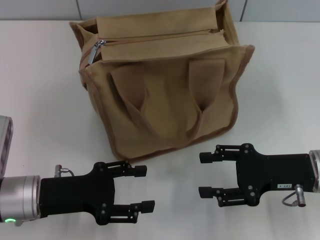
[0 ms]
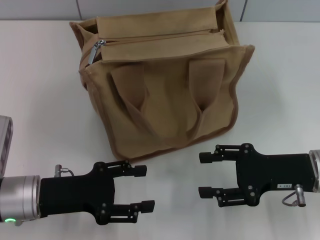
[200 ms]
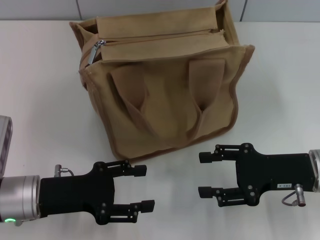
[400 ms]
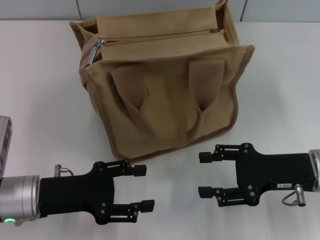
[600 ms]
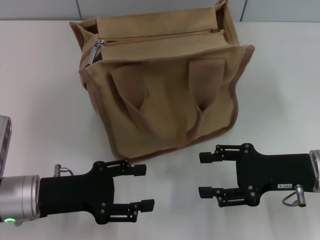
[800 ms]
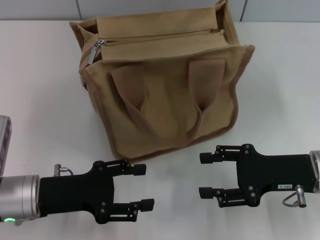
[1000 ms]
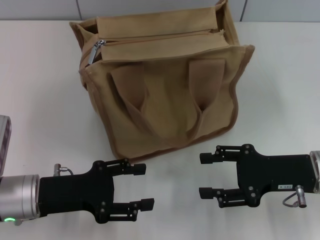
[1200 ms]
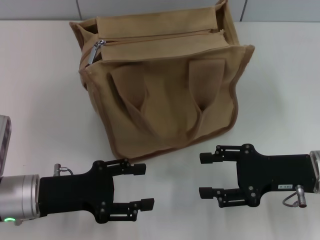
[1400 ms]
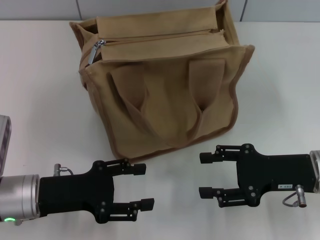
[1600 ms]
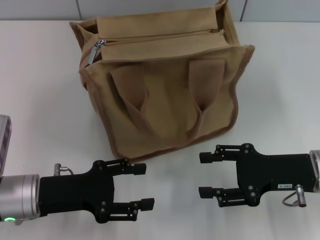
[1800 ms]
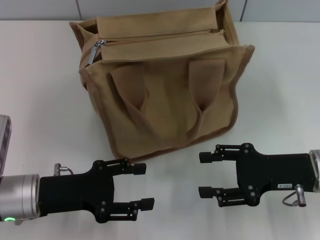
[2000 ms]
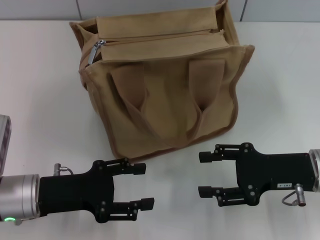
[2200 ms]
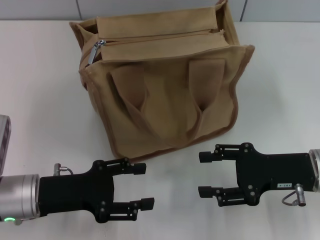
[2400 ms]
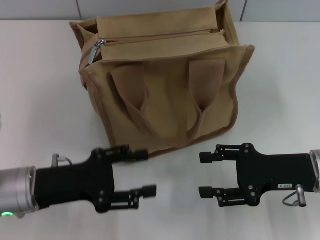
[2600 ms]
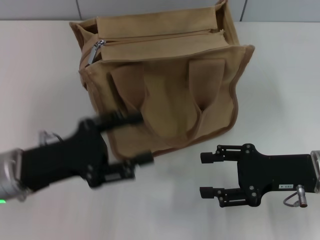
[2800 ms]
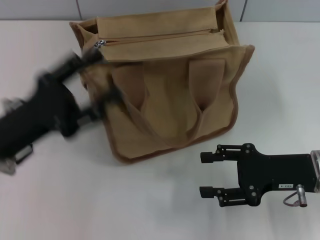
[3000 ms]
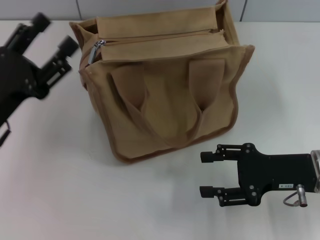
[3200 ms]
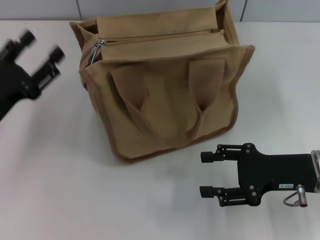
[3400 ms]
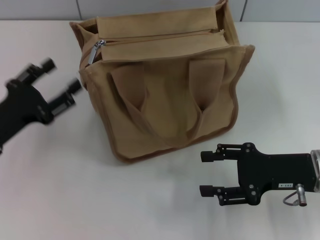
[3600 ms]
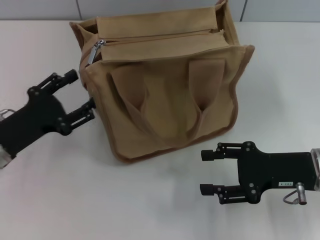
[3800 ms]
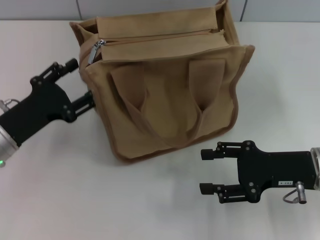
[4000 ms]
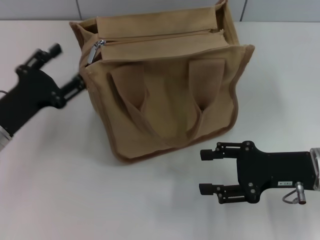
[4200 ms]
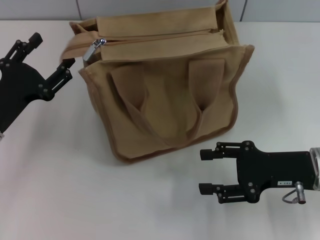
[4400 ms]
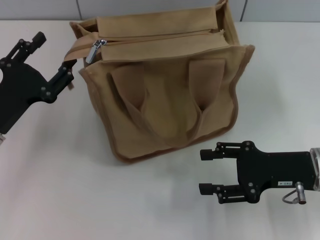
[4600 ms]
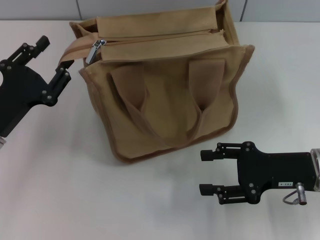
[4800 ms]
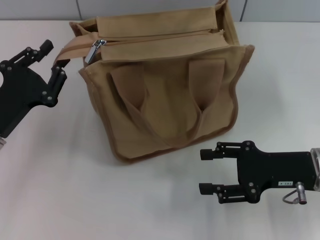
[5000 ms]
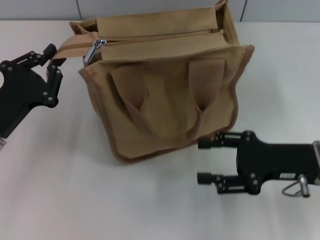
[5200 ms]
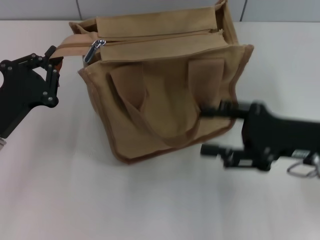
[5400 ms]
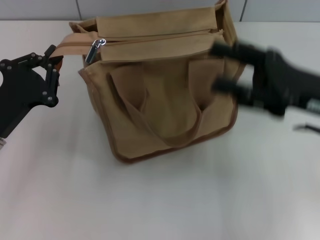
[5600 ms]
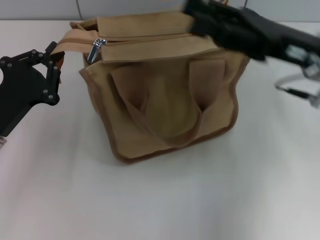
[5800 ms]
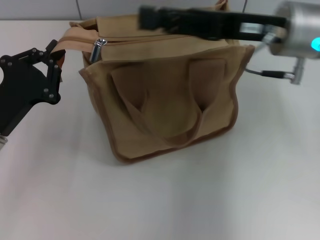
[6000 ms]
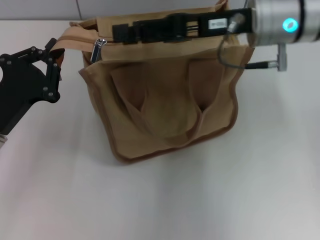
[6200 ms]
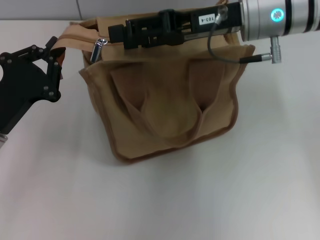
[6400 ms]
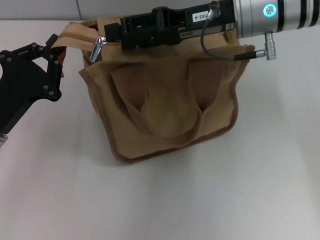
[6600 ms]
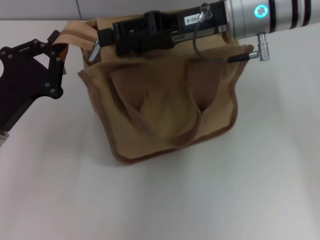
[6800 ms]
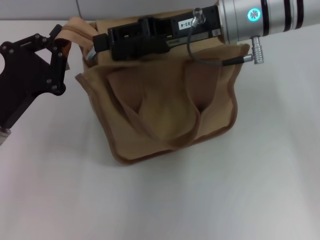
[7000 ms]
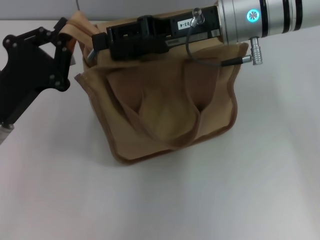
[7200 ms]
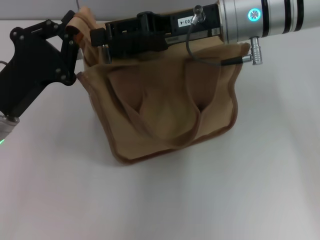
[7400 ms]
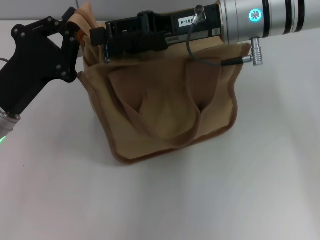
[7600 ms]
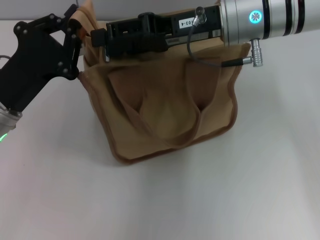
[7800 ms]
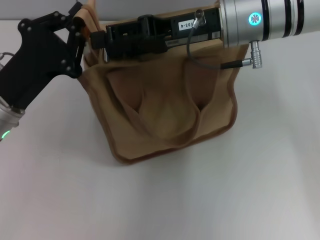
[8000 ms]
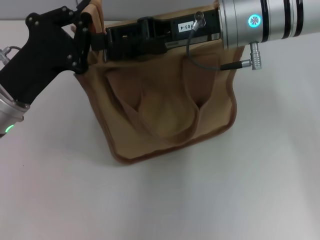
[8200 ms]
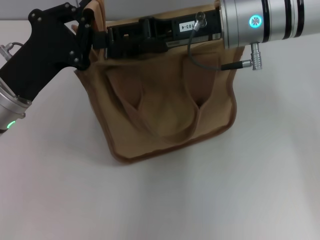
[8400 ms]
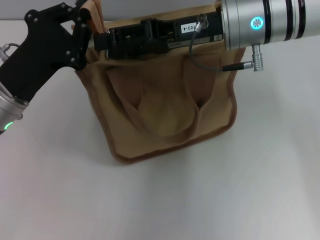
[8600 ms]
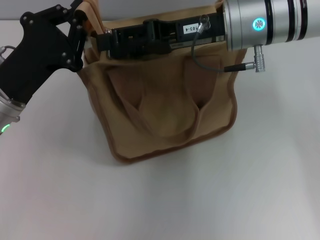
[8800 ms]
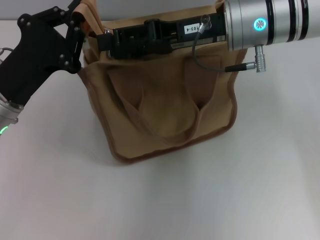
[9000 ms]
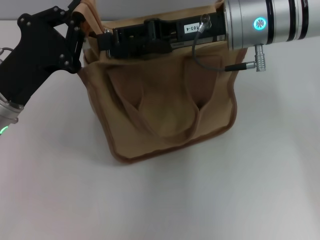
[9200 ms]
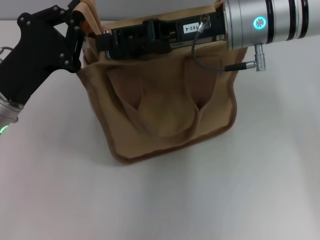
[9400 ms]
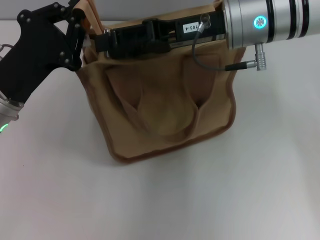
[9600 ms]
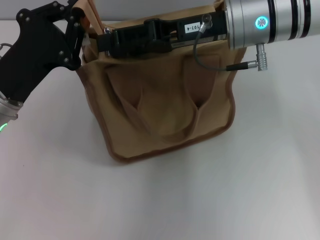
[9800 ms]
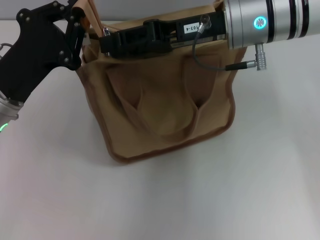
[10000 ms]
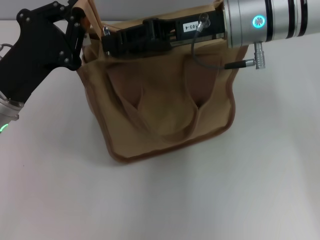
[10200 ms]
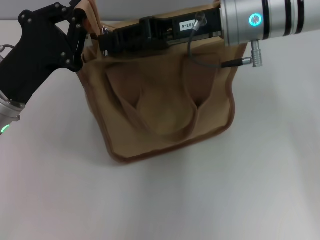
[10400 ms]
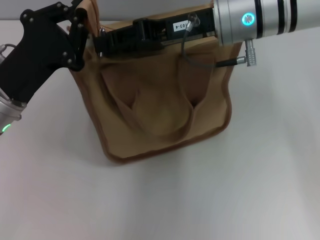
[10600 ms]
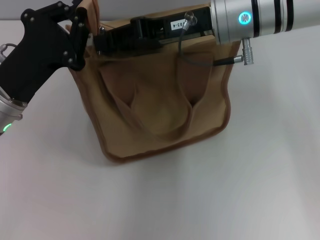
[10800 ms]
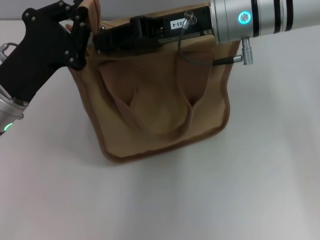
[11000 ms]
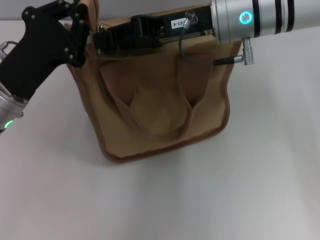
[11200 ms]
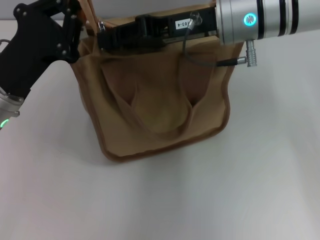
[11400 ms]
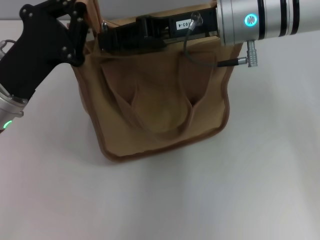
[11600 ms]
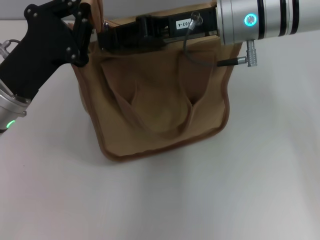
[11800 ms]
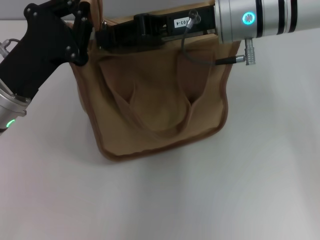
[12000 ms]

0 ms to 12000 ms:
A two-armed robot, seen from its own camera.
0 ms to 1600 ms: Both grippers stay put.
1600 ms to 3000 ms: The left gripper heads upward, covering roughly 5 cm.
3000 ms to 4400 ms: The left gripper changes place by some 5 cm.
4400 ms to 6000 ms: The right gripper goes about 20 cm upward, forward and to the left; the left gripper closes up.
6000 ms to 7600 ms: The right gripper heads to the left, covering some 5 cm.
7600 ms to 9000 ms: The grippers stay close to where they were, moving slightly.
9000 ms to 10400 ms: The right gripper closes up.
10400 ms to 12000 ms: The two grippers keep their place.

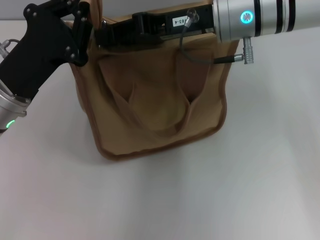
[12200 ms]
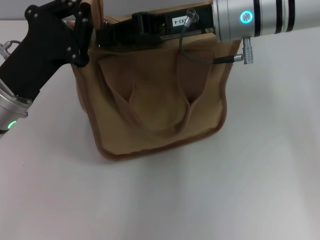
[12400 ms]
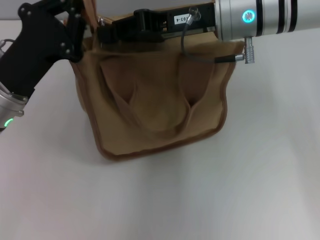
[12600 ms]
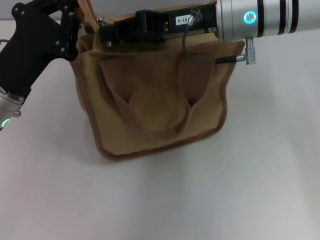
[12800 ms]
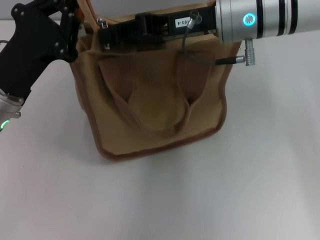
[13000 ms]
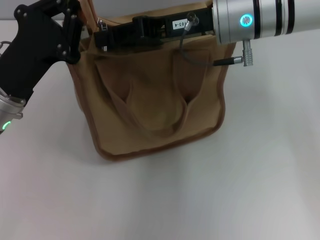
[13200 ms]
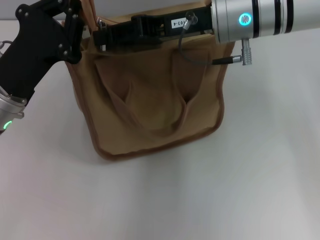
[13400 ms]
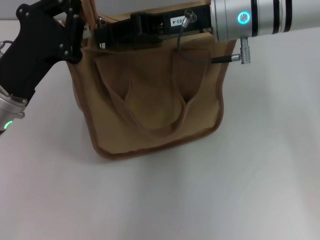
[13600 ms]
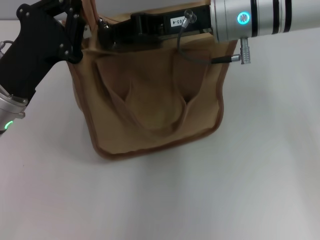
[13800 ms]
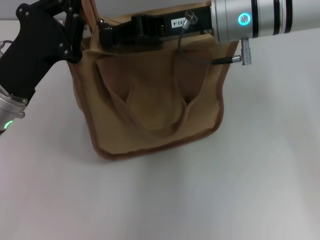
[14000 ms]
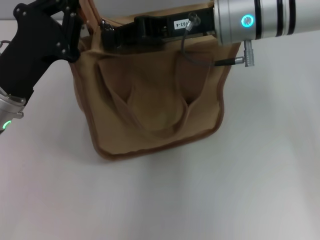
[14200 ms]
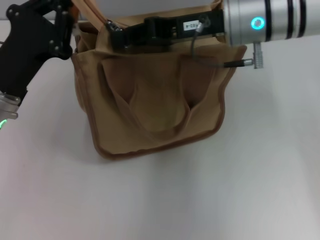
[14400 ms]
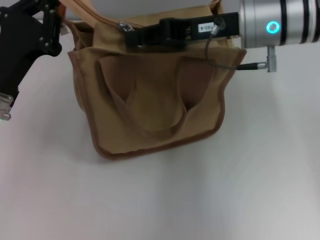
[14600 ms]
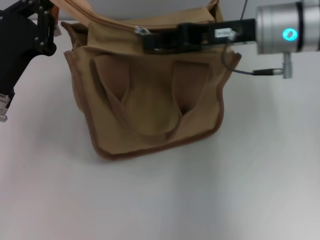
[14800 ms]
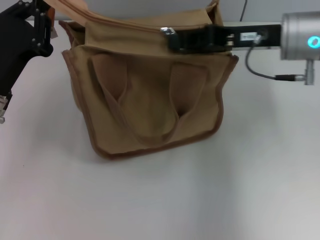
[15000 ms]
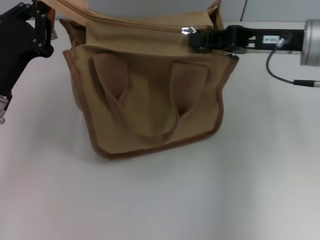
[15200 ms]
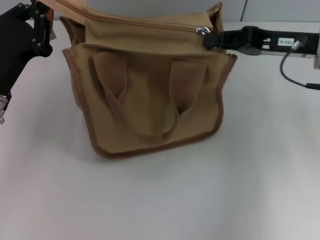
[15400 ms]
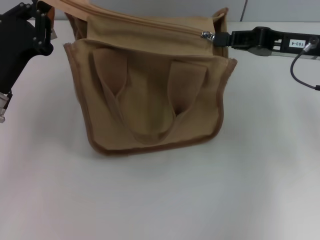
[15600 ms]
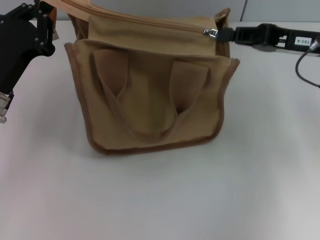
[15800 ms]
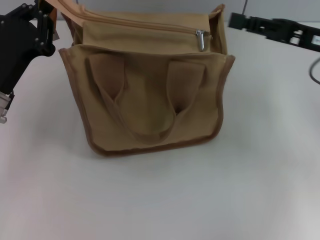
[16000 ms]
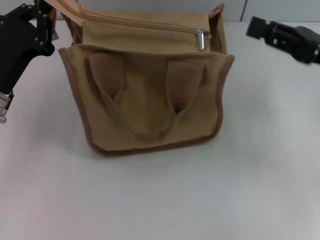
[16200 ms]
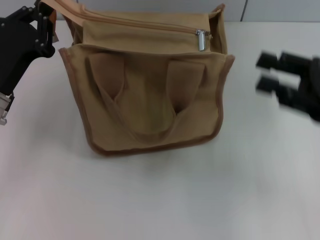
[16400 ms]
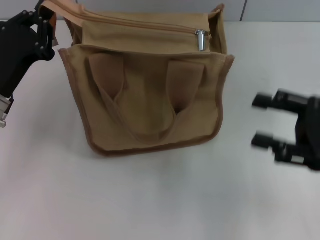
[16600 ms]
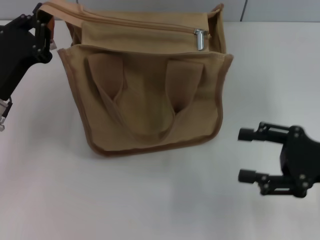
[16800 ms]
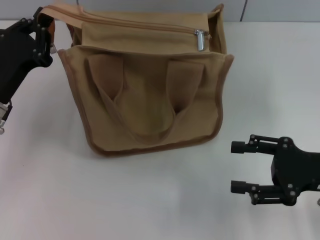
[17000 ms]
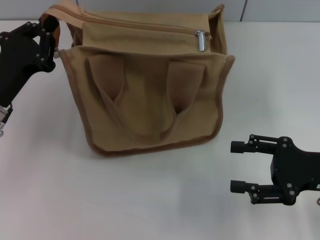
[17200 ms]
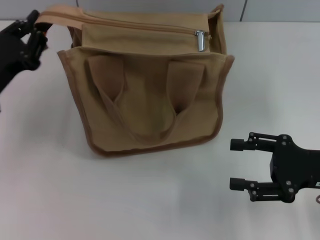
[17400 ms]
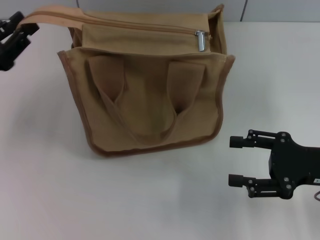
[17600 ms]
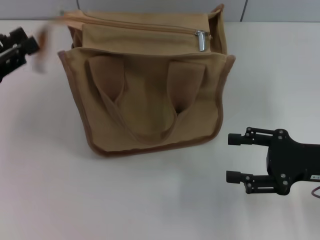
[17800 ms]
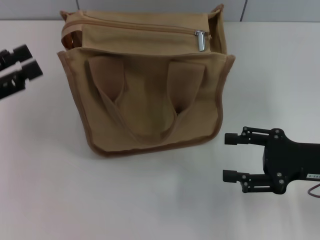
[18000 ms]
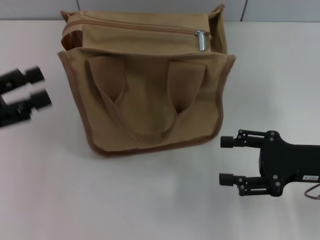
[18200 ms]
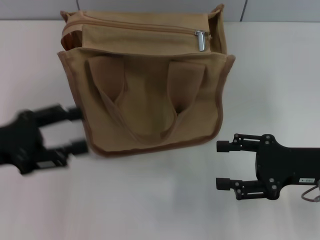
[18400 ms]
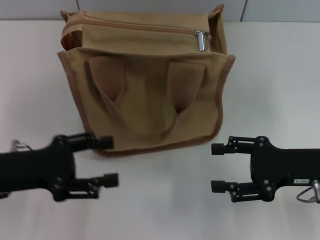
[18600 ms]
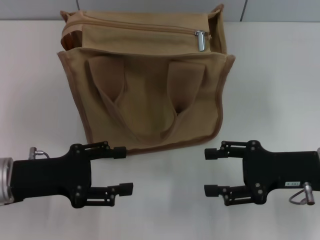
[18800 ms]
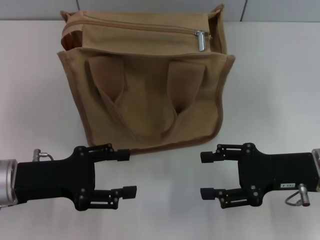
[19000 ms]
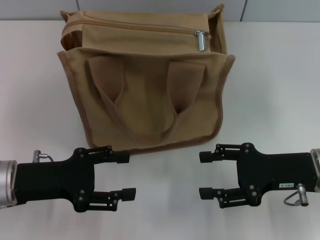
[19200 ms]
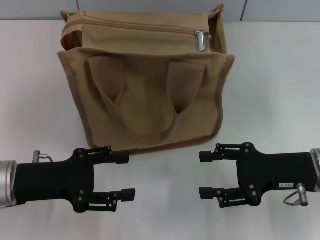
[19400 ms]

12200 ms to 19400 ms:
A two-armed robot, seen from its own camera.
Step, 12200 ms to 16000 ms: Pull up the zipper with your right hand.
Step, 16200 ms to 17800 ms: Grab the zipper with your left hand.
12200 ms to 13600 ms: Both grippers stay about where they are.
13600 ms to 15000 ms: The right gripper heads to the right, covering about 10 cm.
15000 ms to 16600 ms: The right gripper shifts about 20 cm backward, to the right and downward, and opens its fingers.
16600 ms to 18000 ms: The left gripper moves to the left and upward, about 10 cm, and opens up.
18000 ms to 19400 ms: The left gripper shifts approximately 10 cm to the right and downward.

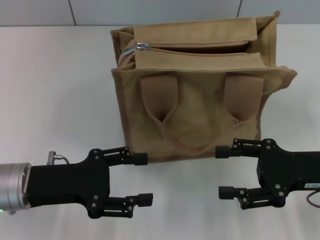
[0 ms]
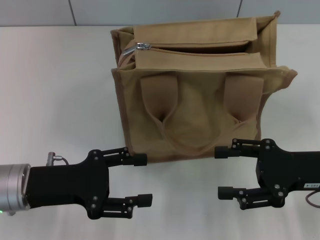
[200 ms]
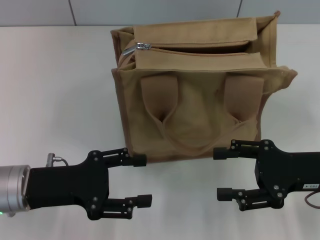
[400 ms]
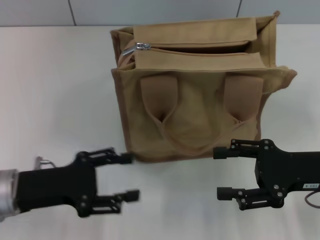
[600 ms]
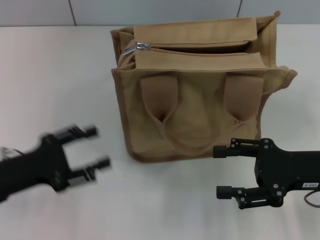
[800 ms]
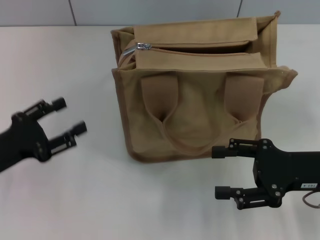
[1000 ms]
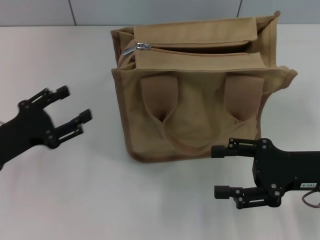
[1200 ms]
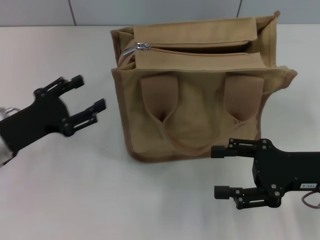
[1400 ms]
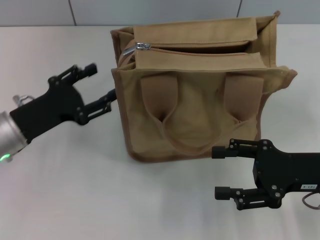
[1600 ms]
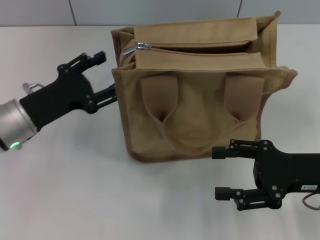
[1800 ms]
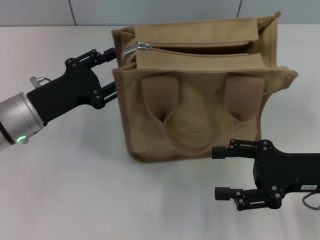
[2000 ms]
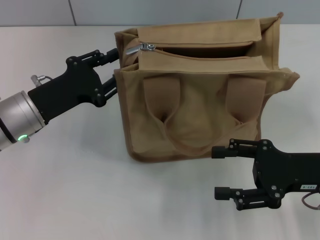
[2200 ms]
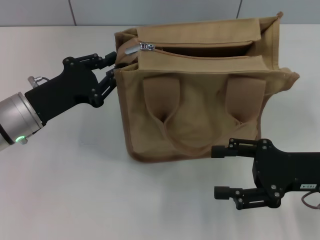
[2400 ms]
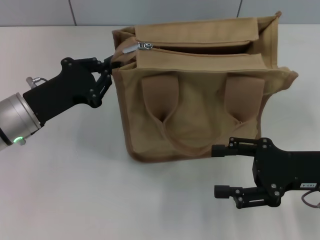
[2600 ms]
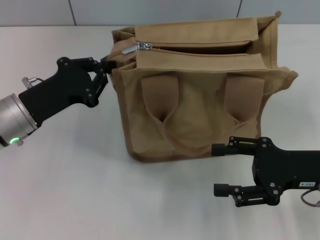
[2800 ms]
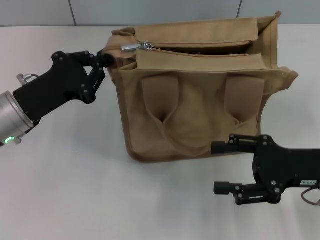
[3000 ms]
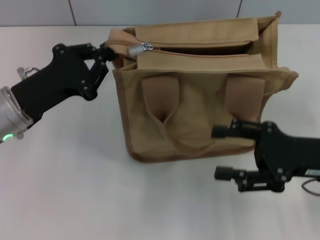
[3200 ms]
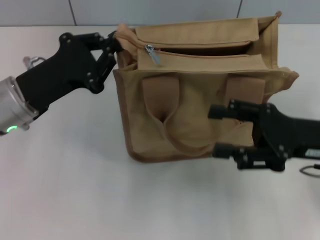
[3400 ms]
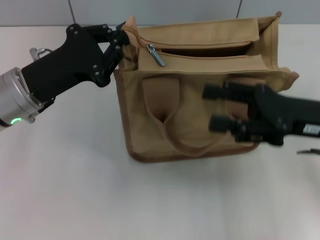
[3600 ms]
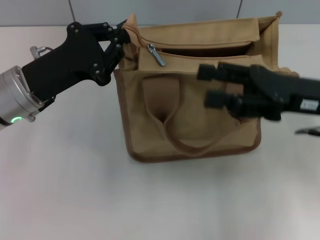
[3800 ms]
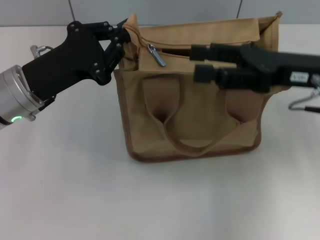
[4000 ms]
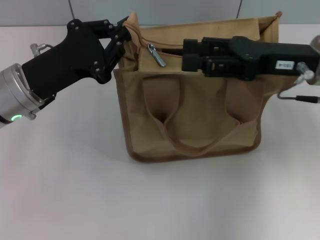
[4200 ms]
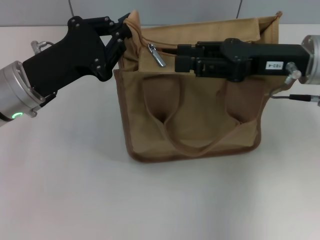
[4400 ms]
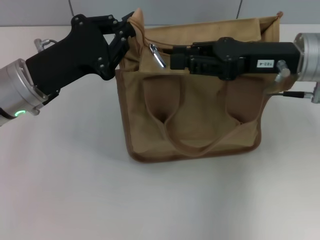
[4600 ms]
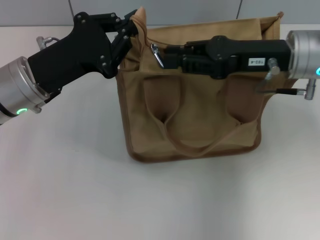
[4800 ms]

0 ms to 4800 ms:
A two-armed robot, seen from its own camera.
0 ms to 1600 ms: The left gripper goes some 5 cm forward.
1600 ms to 3200 ms: The left gripper closes its fingers.
3200 ms to 4800 ms: The right gripper is displaced forward, upward and to the left by some 15 cm, and closes its fingers.
